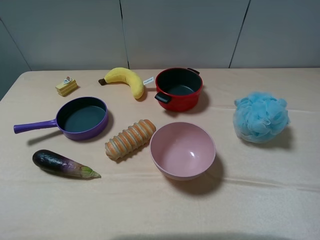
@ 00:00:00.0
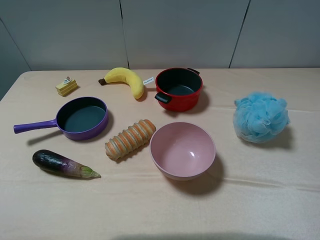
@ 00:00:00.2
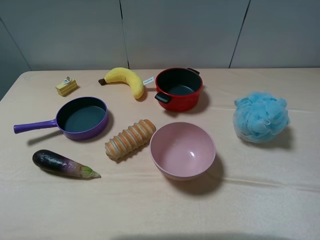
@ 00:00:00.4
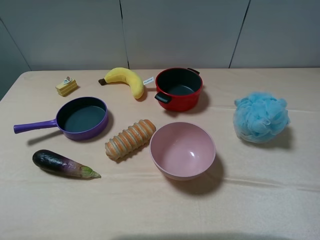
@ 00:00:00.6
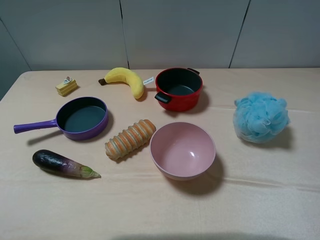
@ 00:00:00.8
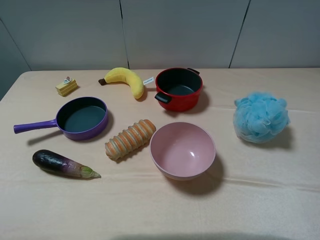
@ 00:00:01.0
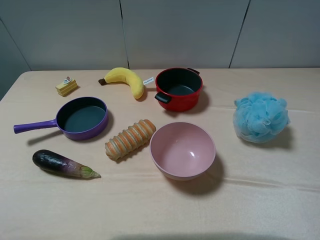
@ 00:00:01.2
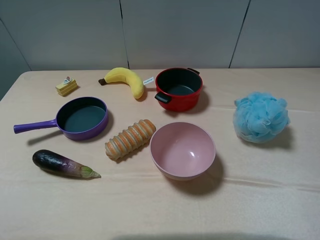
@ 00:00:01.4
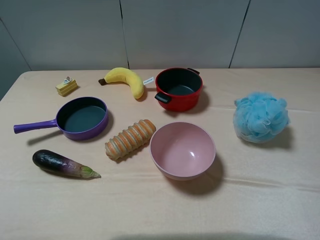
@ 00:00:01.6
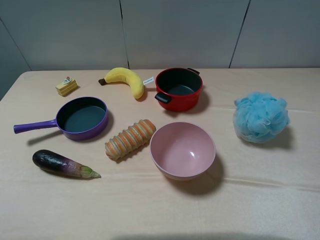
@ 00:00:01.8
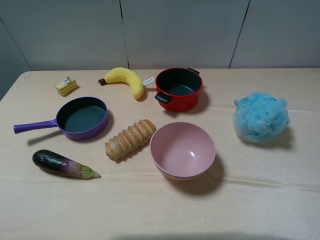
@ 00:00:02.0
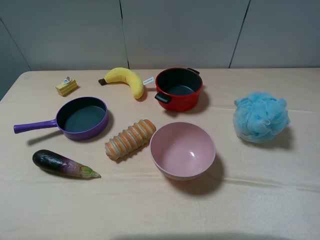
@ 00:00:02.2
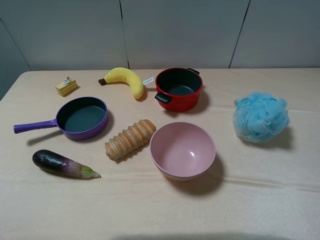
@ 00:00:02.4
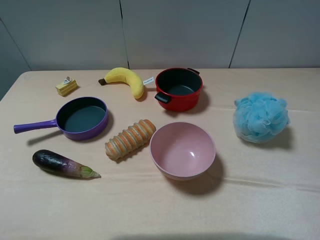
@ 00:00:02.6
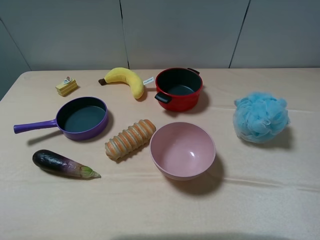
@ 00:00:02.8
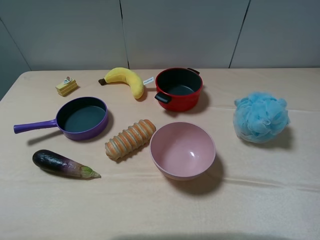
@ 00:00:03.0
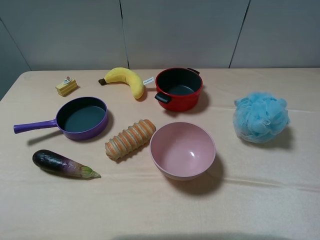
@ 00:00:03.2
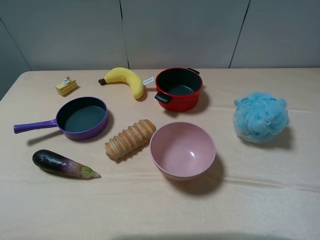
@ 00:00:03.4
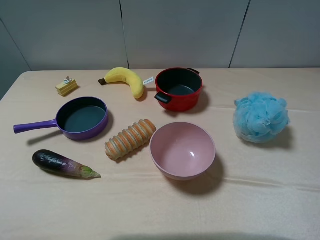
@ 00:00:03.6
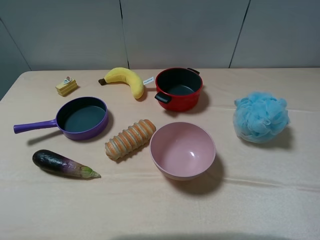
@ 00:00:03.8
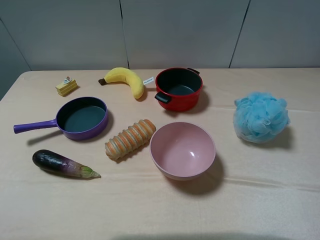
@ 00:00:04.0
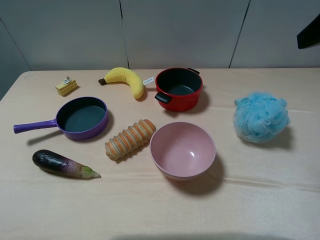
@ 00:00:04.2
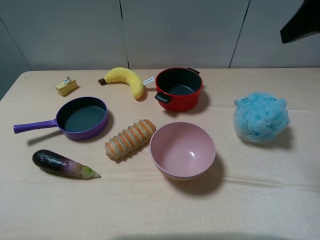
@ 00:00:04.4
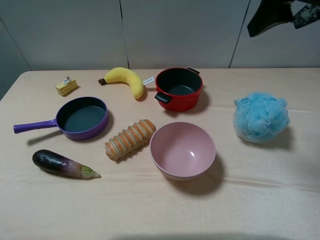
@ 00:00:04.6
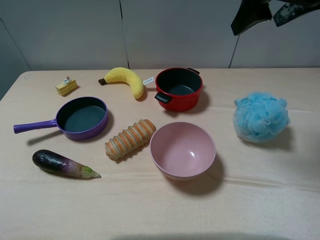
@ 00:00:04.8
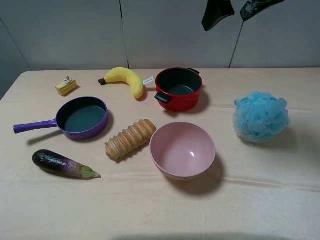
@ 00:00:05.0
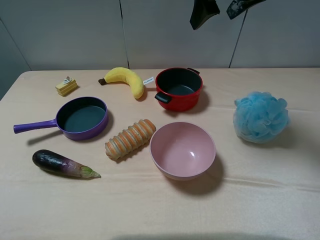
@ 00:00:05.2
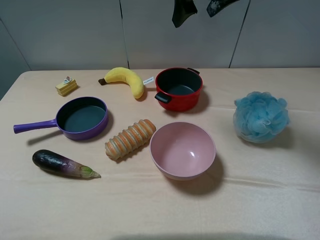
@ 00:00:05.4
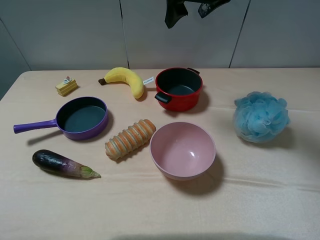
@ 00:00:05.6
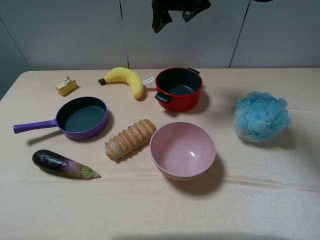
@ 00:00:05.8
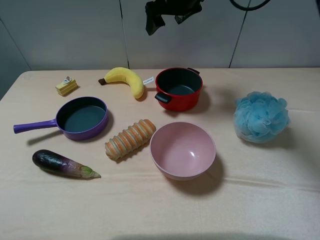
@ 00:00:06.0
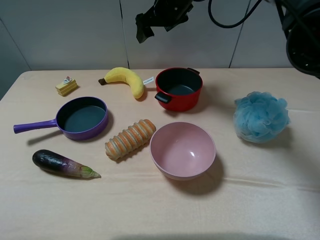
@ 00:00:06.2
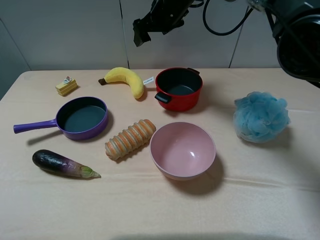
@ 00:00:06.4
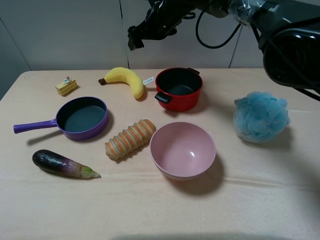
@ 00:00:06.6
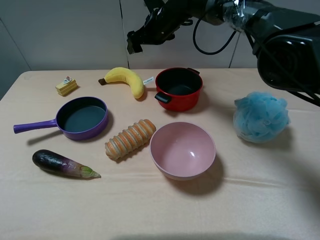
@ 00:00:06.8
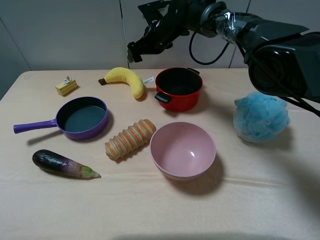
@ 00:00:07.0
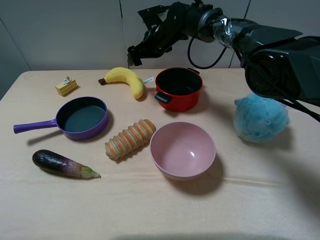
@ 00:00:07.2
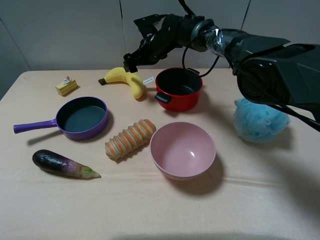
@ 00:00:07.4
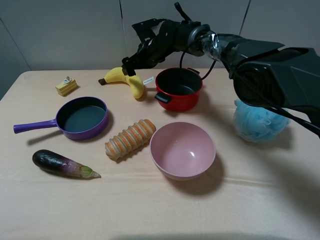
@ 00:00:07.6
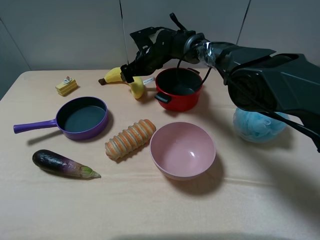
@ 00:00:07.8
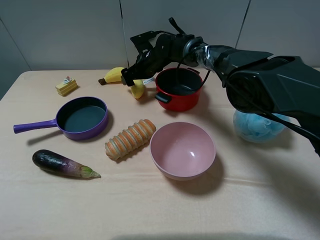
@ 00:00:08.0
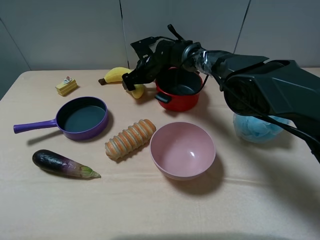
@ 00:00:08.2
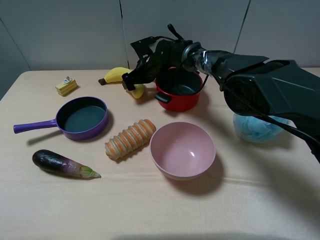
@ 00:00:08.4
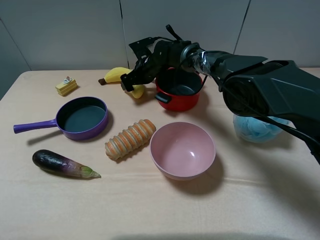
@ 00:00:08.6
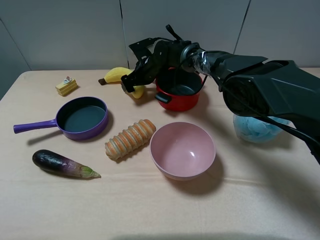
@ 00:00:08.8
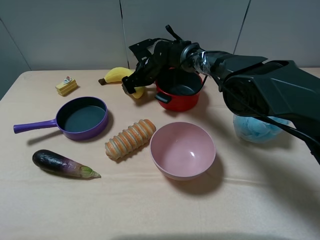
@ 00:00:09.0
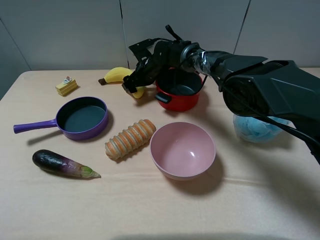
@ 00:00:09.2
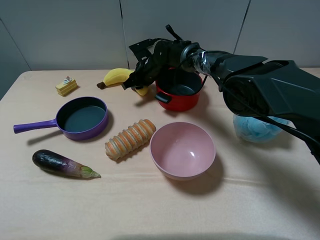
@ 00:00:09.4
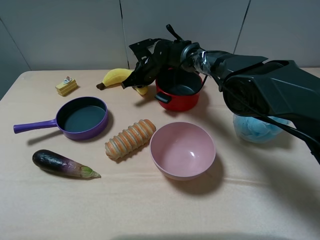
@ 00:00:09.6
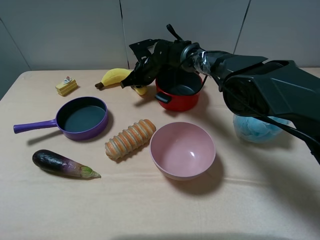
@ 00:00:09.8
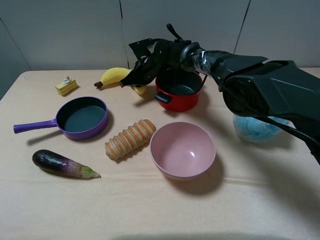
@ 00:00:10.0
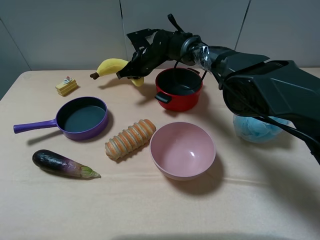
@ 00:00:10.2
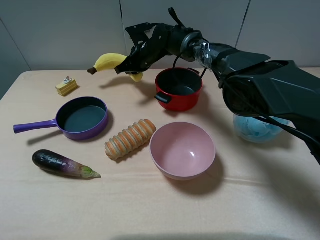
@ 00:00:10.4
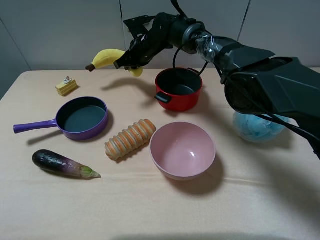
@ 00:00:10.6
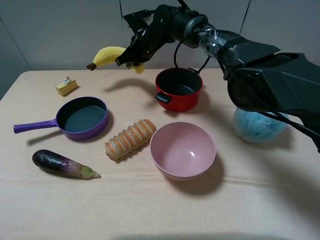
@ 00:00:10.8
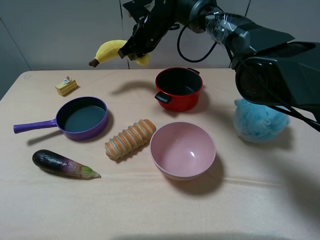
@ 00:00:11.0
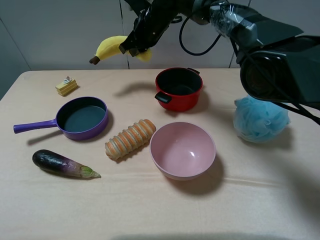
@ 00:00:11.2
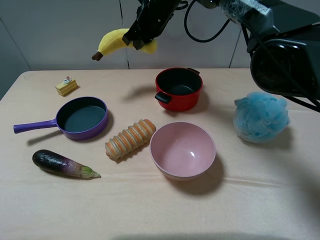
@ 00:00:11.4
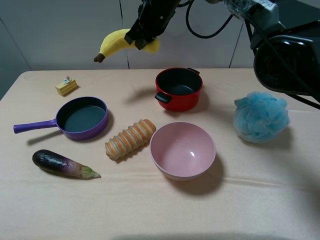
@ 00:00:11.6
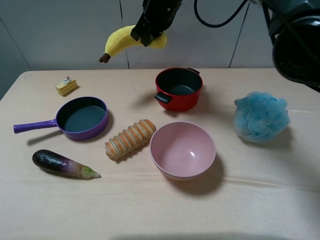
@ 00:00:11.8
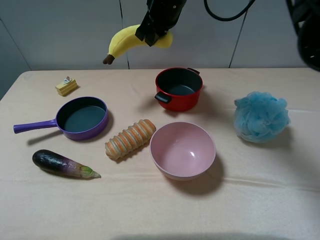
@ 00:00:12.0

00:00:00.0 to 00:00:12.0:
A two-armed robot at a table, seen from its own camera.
Task of the whole recording: pick up an item with a gripper and place it in a random container on the table.
Step, 00:00:00.0 to 00:00:09.6: Grasp the plush banana with the right gripper.
00:00:00.0 to 00:00:01.6: Both grippers stay put.
00:00:03.0 to 00:00:04.4: The right gripper heads forward, covering roughly 20 cm.
00:00:04.4 to 00:00:06.0: The right gripper goes roughly 30 cm forward, to the left and downward.
00:00:06.0 to 00:00:07.6: The right gripper travels downward by roughly 15 cm.
00:00:07.6 to 00:00:09.0: There are only small adjustments of the grippers.
00:00:09.0 to 00:00:10.4: The right gripper closes.
00:00:10.4 to 00:00:12.0: The right gripper goes about 15 cm upward and backward.

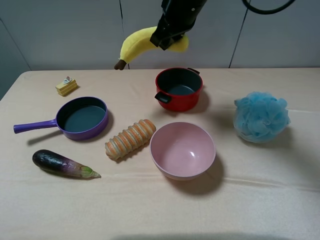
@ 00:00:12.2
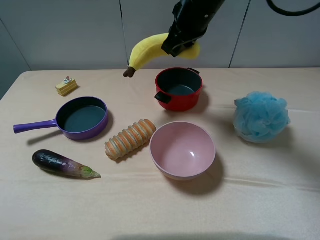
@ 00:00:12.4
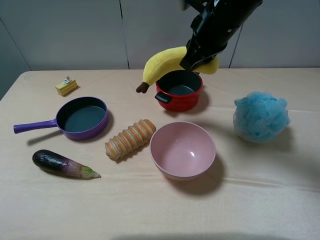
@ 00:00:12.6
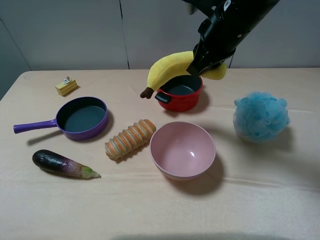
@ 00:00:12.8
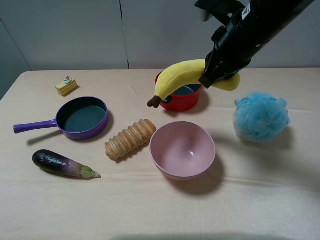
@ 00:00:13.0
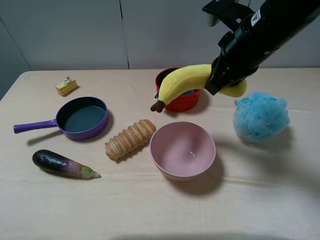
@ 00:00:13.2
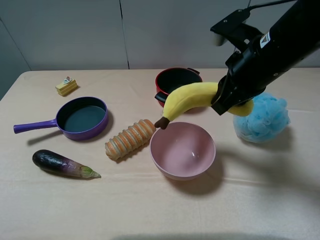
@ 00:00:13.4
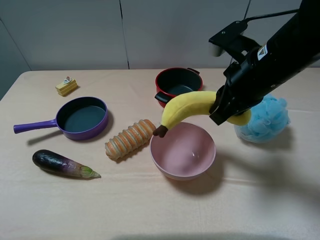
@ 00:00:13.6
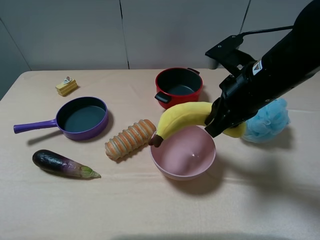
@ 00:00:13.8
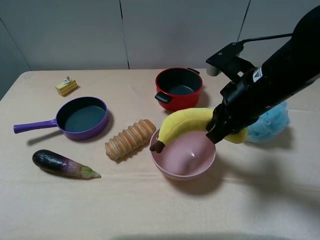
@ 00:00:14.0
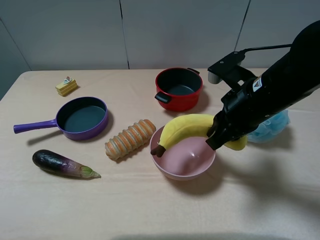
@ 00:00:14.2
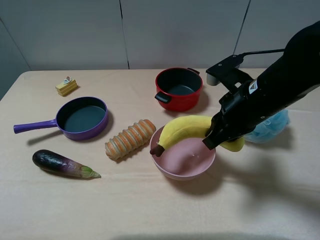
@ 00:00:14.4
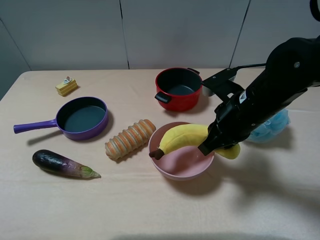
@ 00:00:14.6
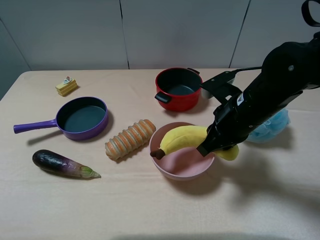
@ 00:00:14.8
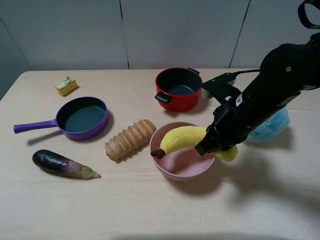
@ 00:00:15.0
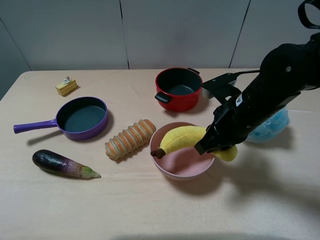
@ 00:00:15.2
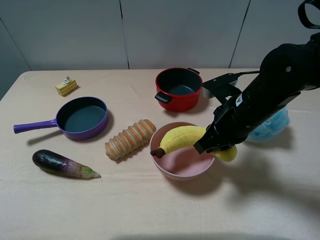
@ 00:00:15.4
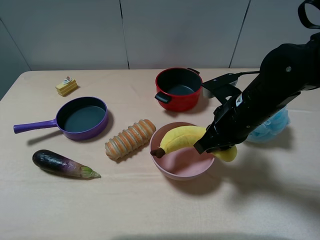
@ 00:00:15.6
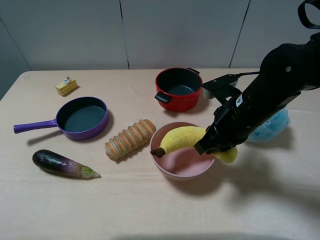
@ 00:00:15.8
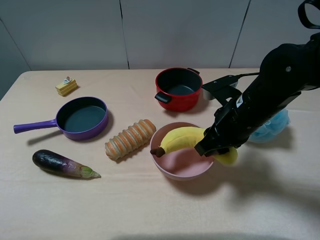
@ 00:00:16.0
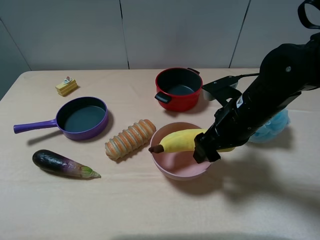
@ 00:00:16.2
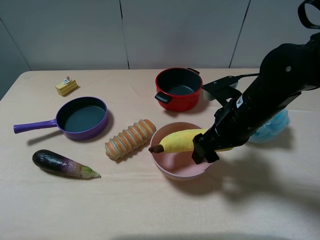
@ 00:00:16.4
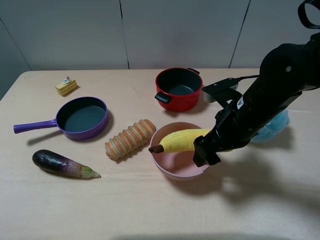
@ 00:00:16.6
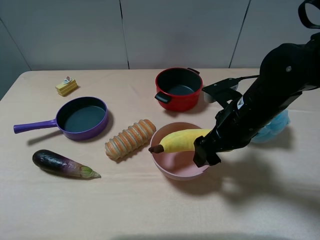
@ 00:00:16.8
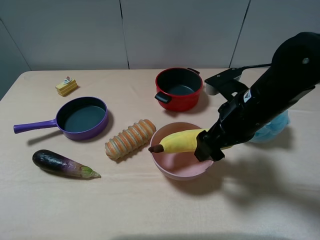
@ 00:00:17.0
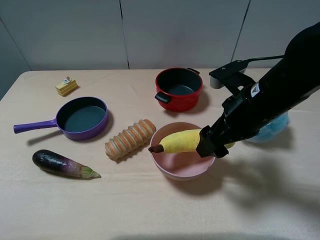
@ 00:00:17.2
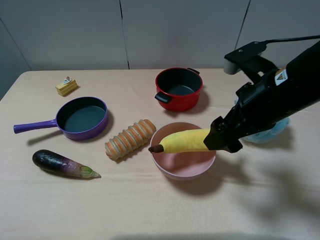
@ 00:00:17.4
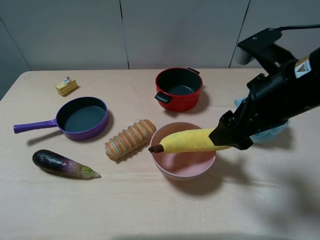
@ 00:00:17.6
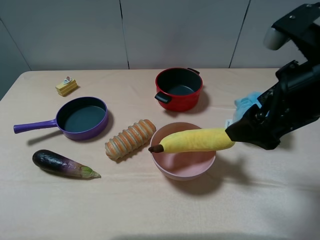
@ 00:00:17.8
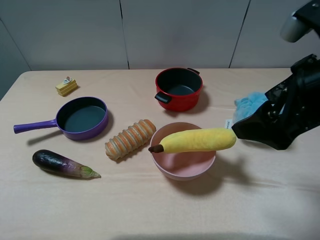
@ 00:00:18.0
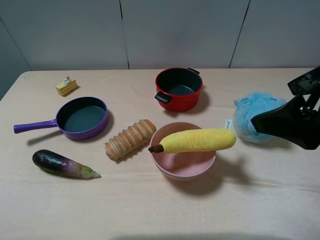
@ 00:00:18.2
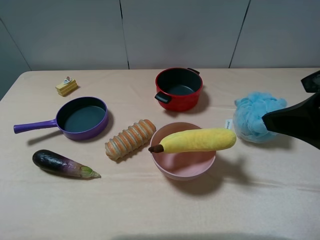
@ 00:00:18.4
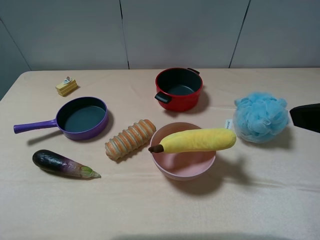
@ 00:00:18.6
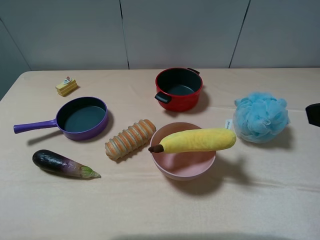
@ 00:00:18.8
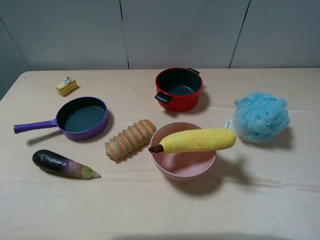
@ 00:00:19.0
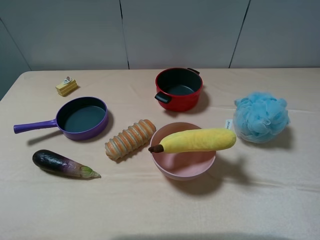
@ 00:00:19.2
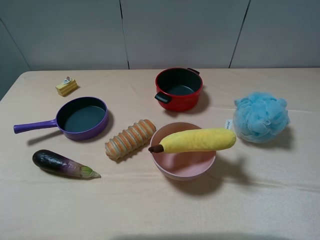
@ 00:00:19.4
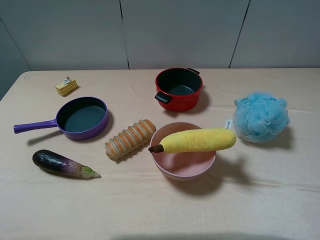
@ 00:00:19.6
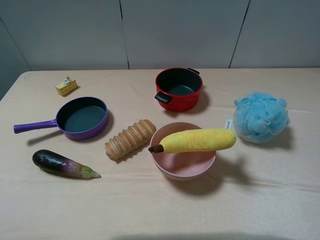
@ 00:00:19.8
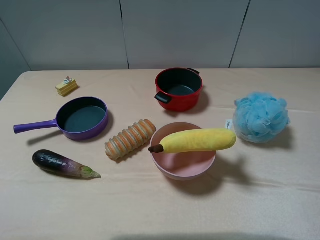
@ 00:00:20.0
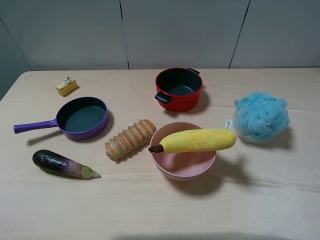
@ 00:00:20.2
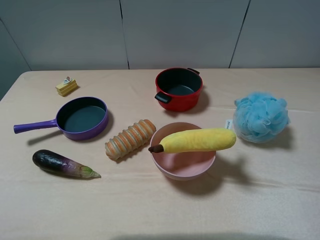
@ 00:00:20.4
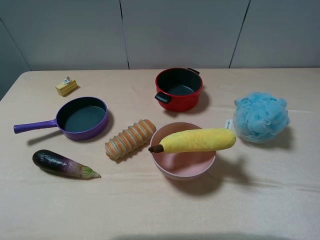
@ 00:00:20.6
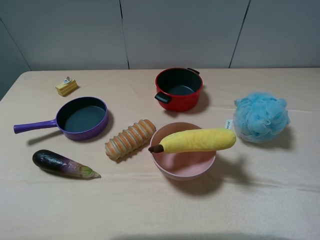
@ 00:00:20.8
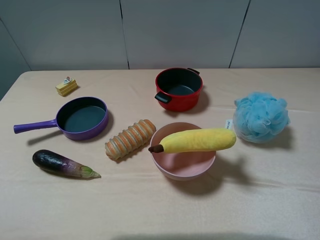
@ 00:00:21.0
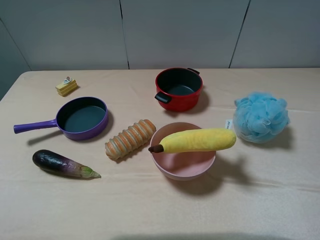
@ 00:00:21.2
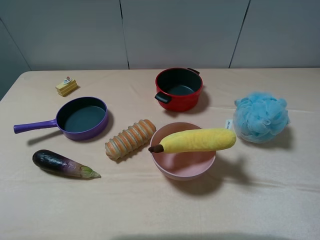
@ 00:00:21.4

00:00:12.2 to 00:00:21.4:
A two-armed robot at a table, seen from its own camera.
Task of the whole recording: pick up an item with a gripper and place it in a random container on the table.
Step, 00:00:12.2 to 00:00:17.0: Place the plush banana into the pink bowl with the right gripper.
00:00:12.2 to 00:00:13.8: The right gripper shifts approximately 20 cm backward and to the right.
00:00:13.8 to 00:00:15.2: The right gripper goes some 5 cm downward.
00:00:15.2 to 00:00:16.8: The right gripper opens its fingers.
00:00:16.8 to 00:00:18.4: The right gripper shifts about 20 cm upward, backward and to the right.
00:00:18.4 to 00:00:19.8: The right gripper heads backward and to the right, covering approximately 15 cm.
